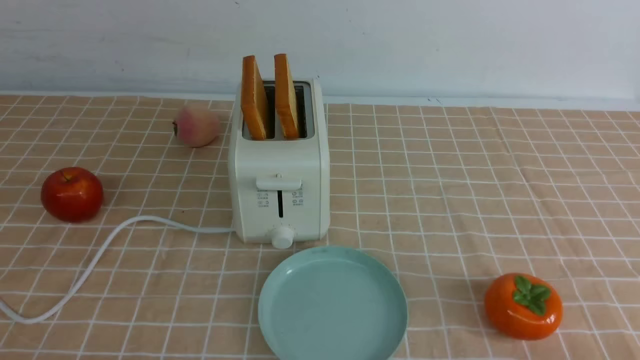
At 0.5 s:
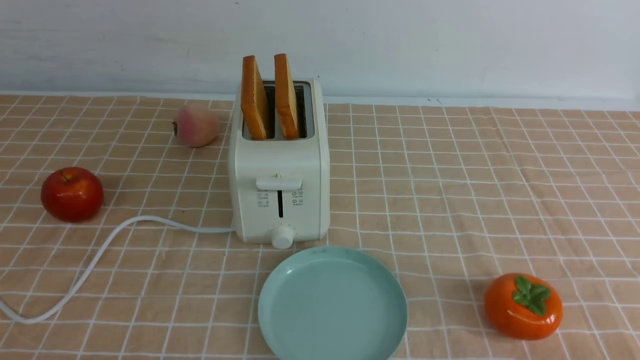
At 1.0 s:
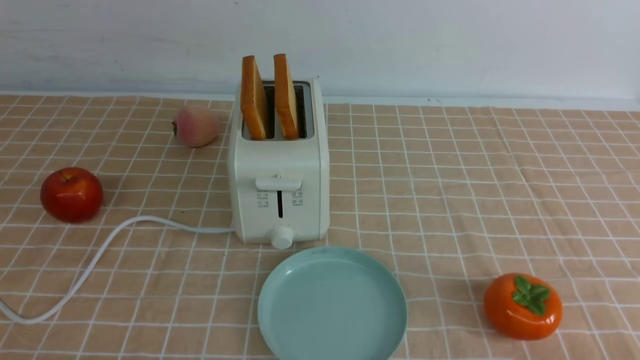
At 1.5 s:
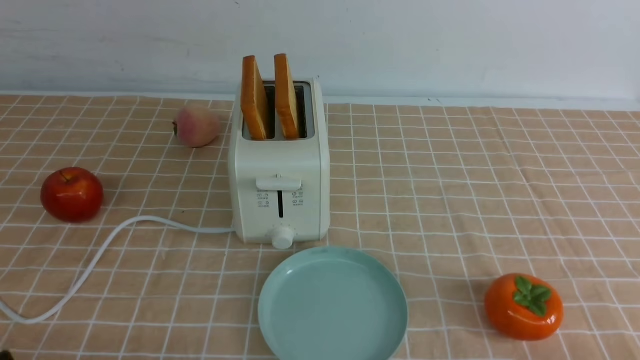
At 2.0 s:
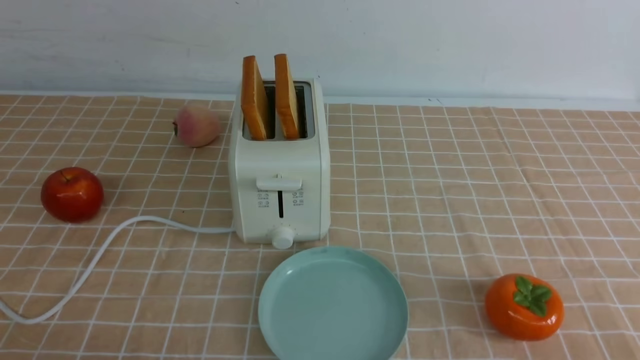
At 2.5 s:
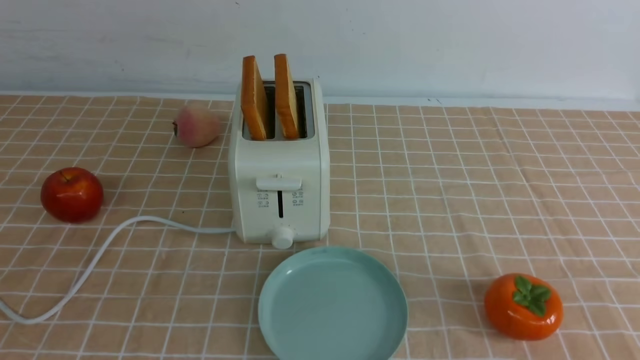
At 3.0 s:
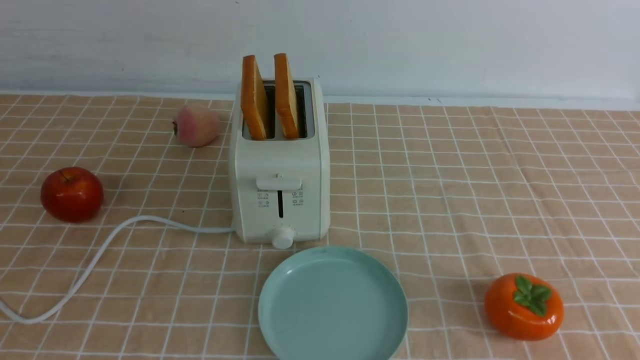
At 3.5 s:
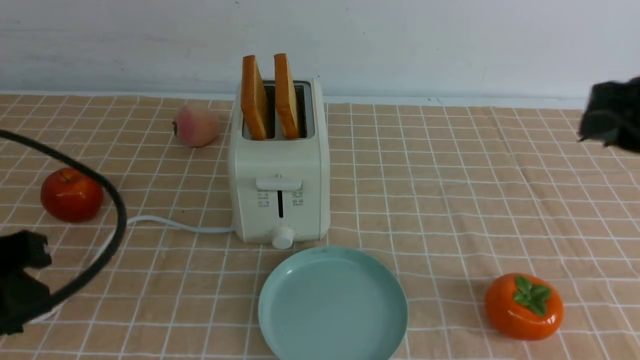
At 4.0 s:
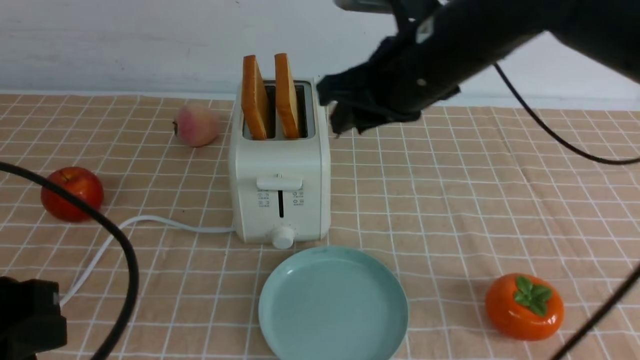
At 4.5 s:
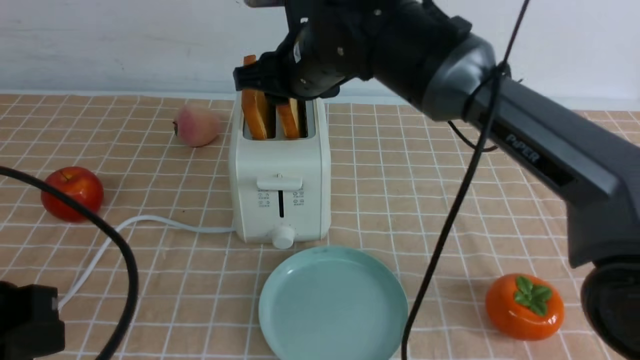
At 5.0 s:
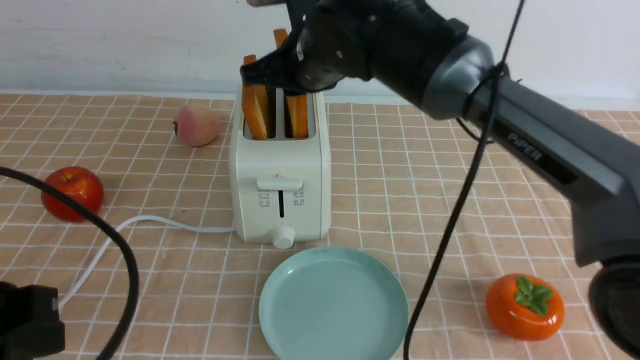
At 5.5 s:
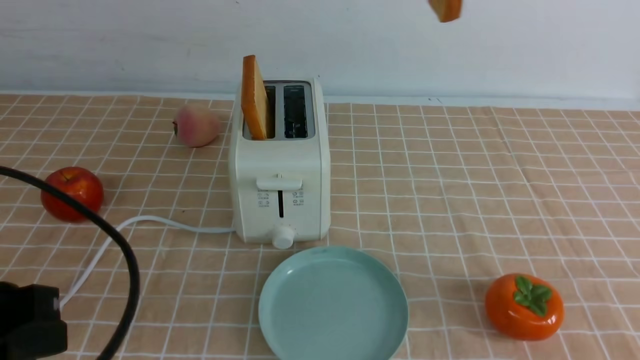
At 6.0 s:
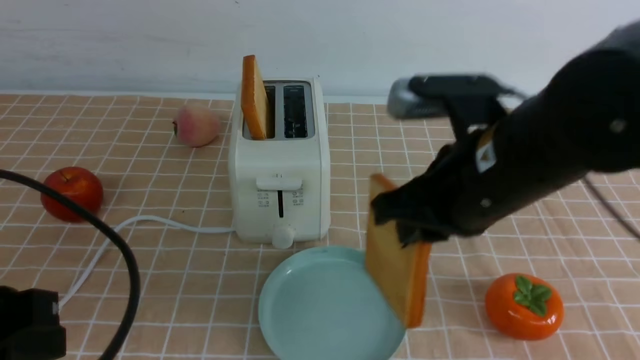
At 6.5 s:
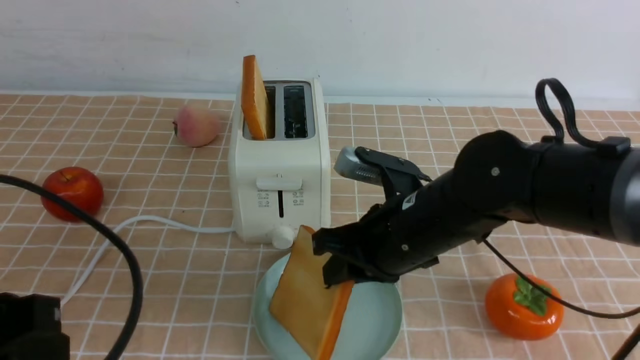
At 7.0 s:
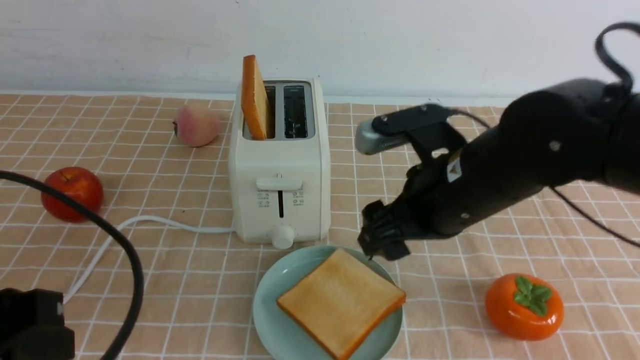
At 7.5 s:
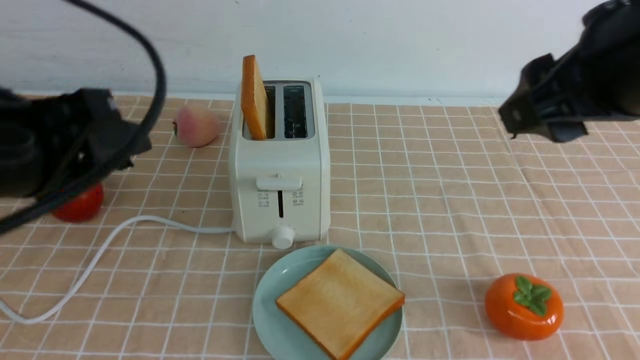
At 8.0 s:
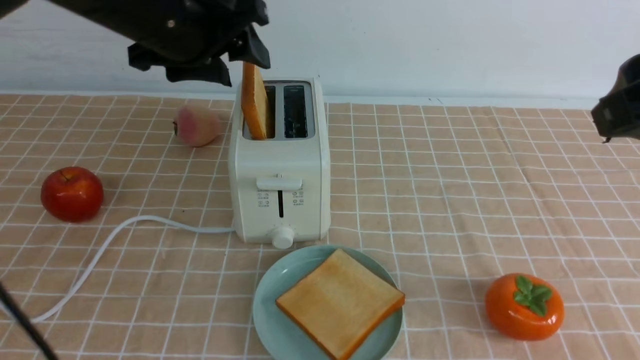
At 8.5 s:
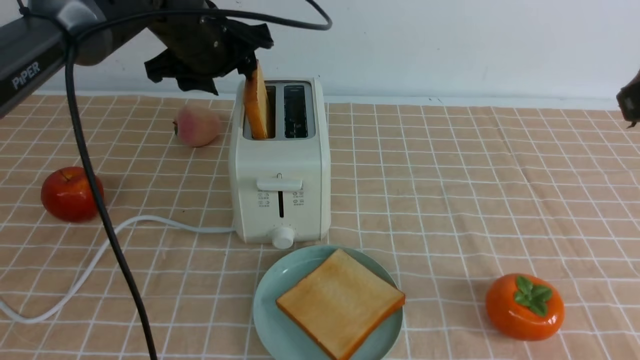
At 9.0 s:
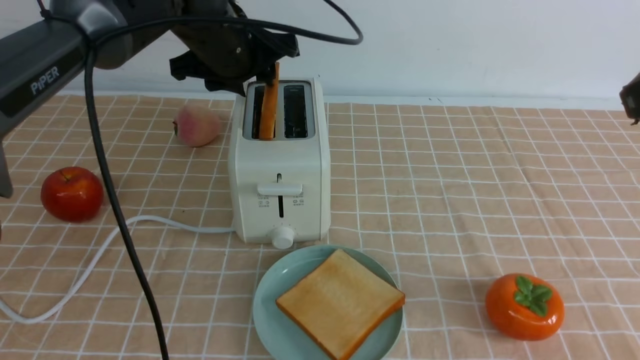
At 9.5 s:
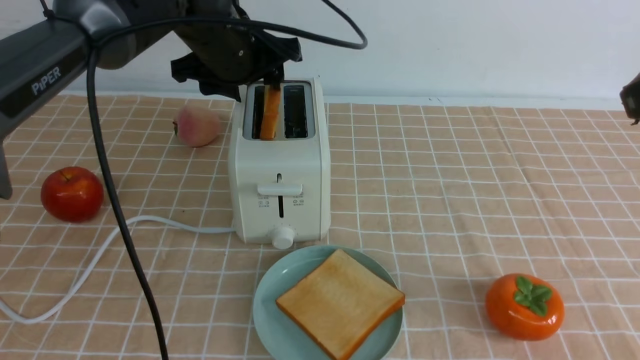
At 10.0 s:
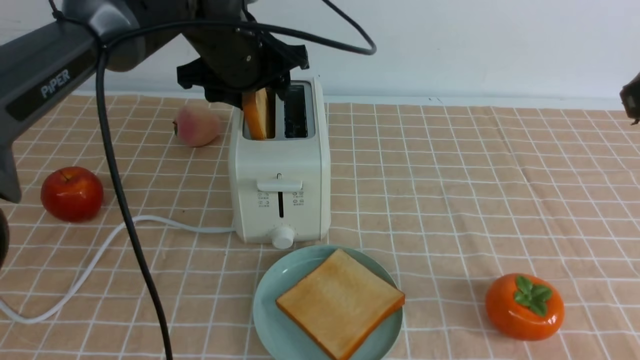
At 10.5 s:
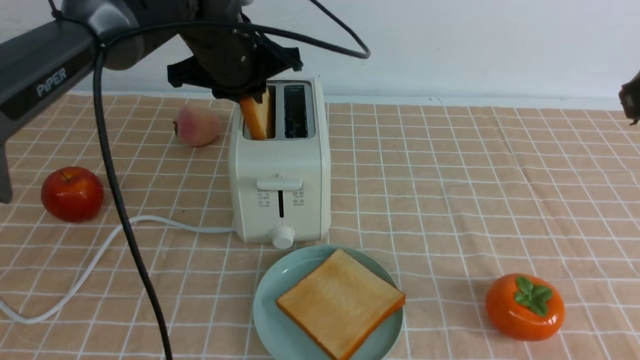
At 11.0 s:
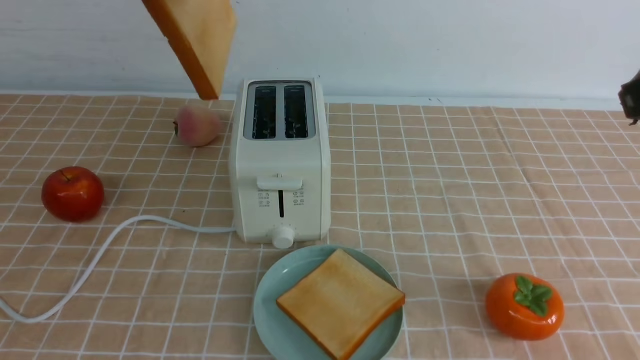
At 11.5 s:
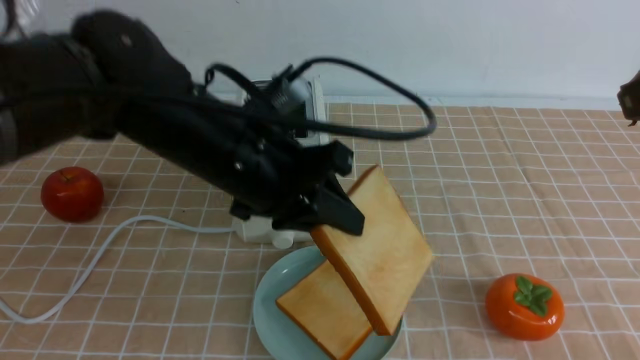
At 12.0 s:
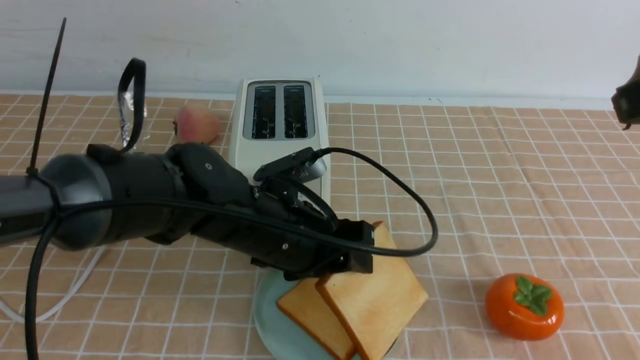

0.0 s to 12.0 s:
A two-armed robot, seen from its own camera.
Task of the whole recording: take toasted bread from bread machine on light coffee tablecloth place on plate.
Step, 0.0 to 5.0 s: use the right arm to take out a slice of bread.
Step, 5.5 to 6.5 s: use the right arm to put a slice of bread into the plate.
Step, 7.0 to 10.5 s: use the left arm to take out a slice of bread.
2.0 to 4.0 s: The right gripper moves forward and to the left, roughly 40 cm. Meanwhile the left gripper moves upward and forward, some 10 cm.
4.0 to 6.0 s: The right gripper moves up and down over some 15 cm, changing direction 2 times.
6.0 to 8.0 s: The left gripper is displaced forward by approximately 25 cm, and opens up; the right gripper shifts roughly 20 cm upward, to the right and backward, and opens.
8.0 to 10.0 s: The left gripper travels forward, downward and to the right by some 10 cm.
10.0 to 12.0 s: The left gripper is displaced backward and downward by roughly 20 cm, and closes, then reopens.

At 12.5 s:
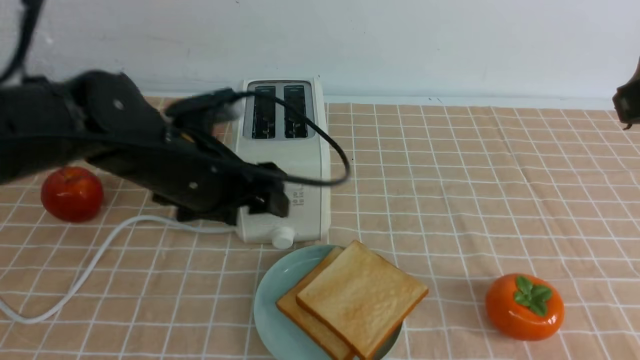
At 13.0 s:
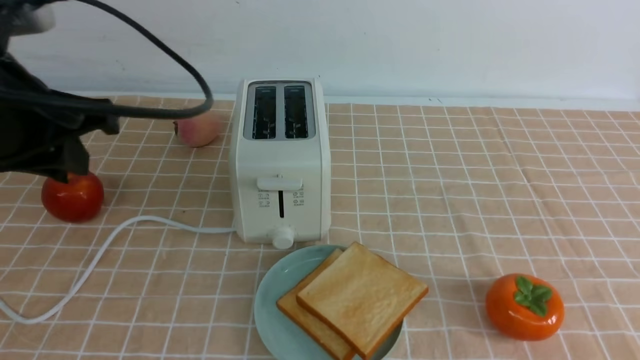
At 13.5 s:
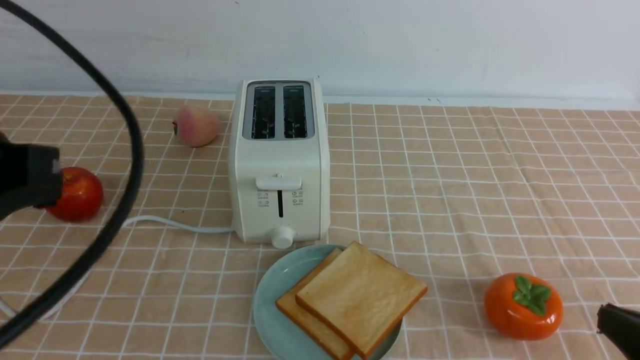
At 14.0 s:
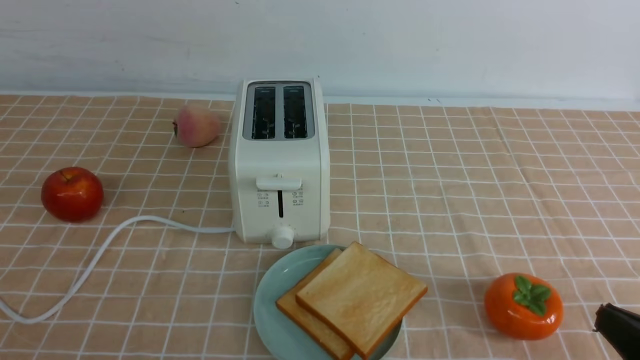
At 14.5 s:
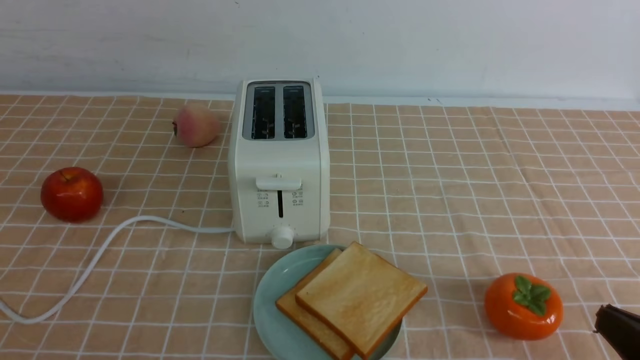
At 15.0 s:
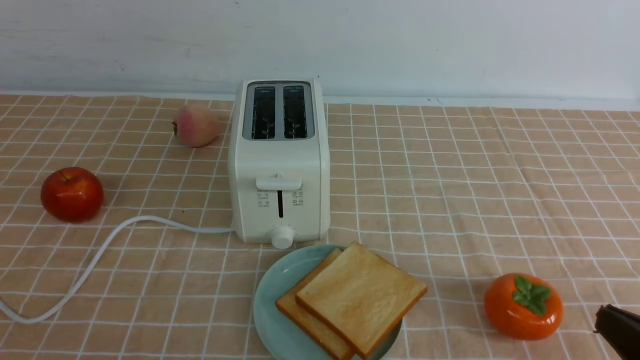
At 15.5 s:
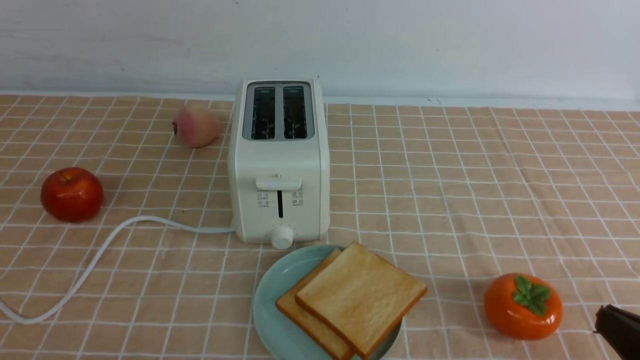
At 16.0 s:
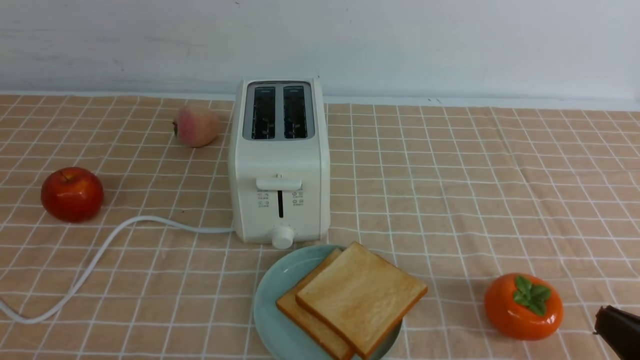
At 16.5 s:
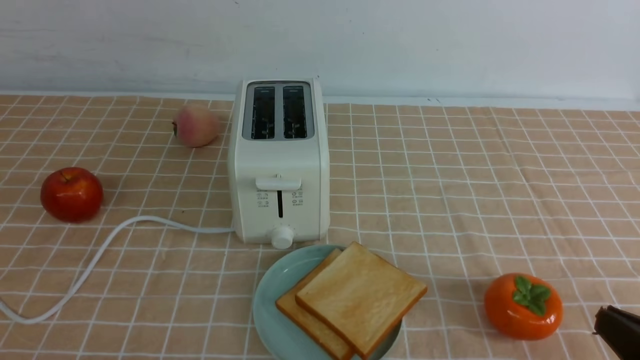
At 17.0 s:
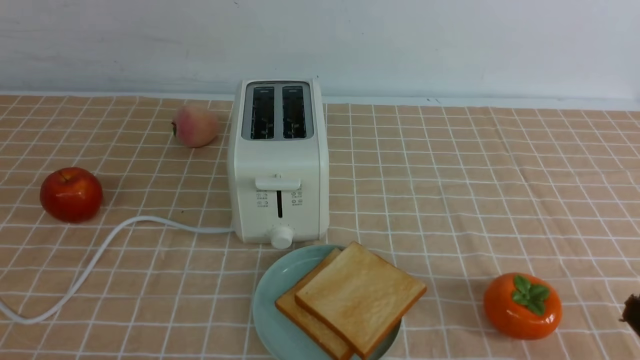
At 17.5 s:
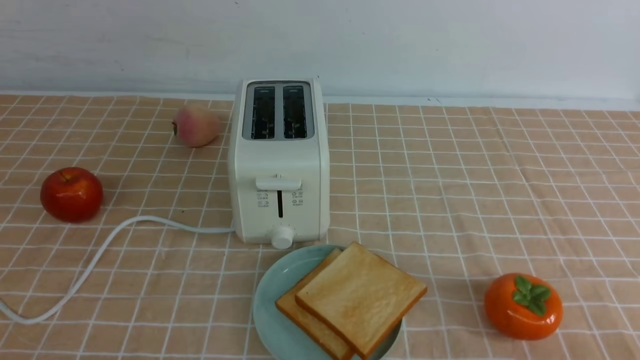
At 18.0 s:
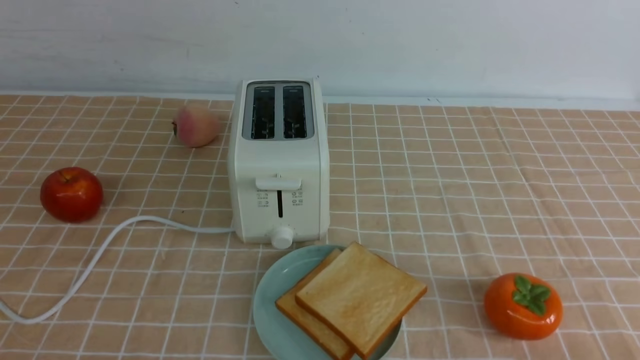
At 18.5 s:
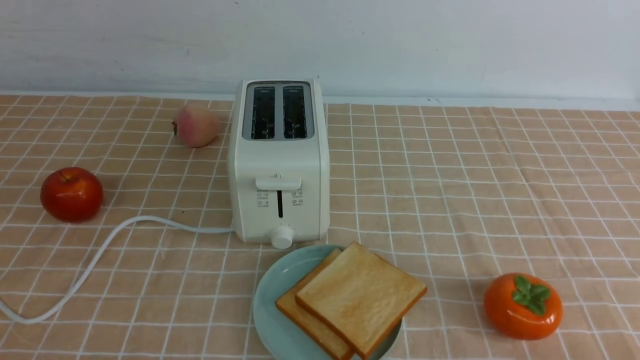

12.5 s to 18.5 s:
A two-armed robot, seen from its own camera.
Task of the whole recording: take toasted bread from bread machine on light coffee tablecloth place on plate.
12.5 to 14.5 s: The left gripper moves backward, approximately 30 cm, and closes. The right gripper shifts about 25 cm downward and backward, and closes up.
16.5 to 18.5 s: The right gripper heads downward, covering roughly 5 cm.

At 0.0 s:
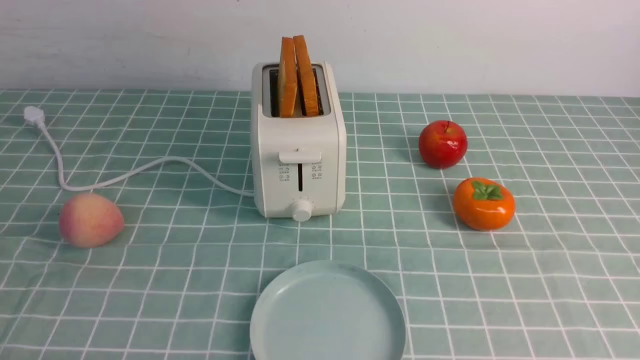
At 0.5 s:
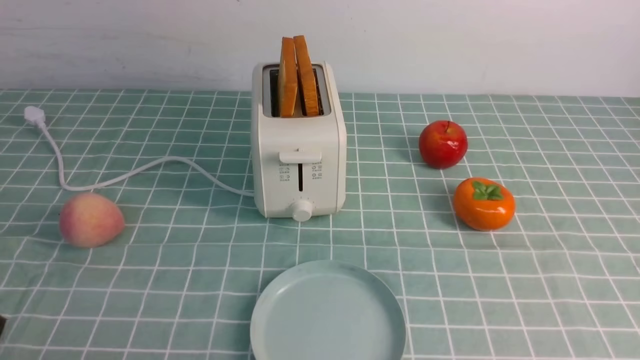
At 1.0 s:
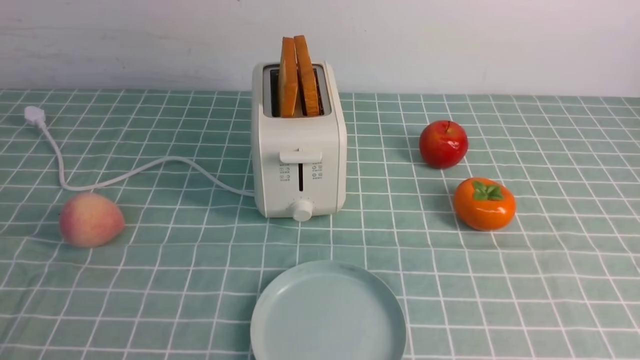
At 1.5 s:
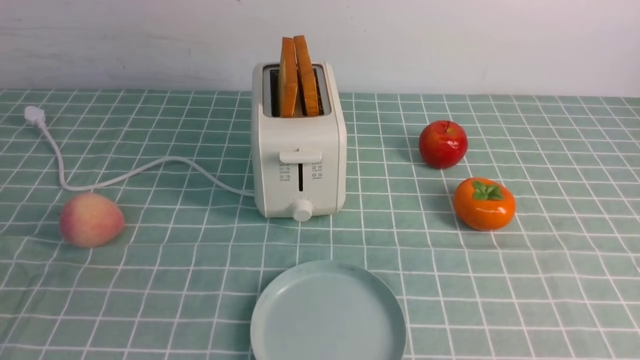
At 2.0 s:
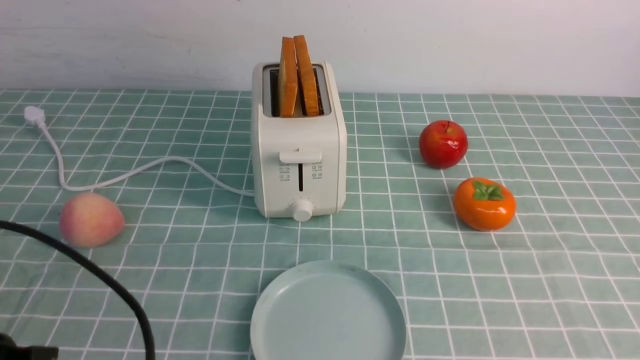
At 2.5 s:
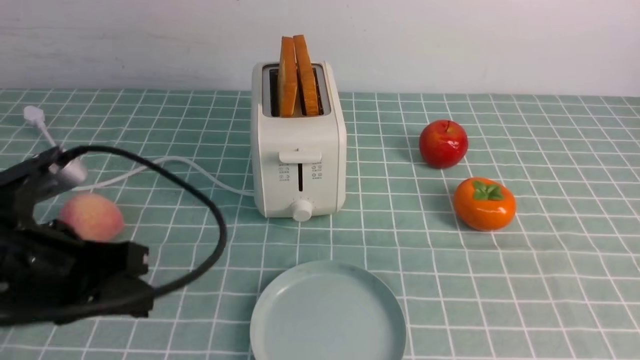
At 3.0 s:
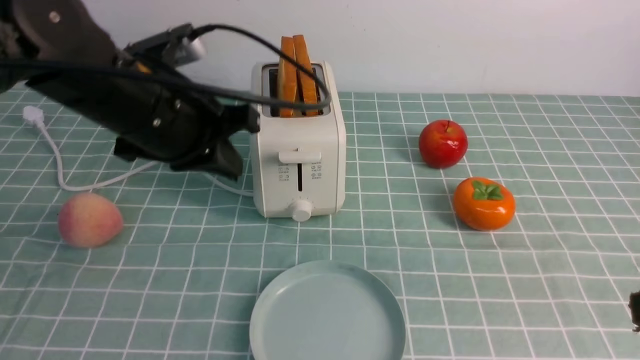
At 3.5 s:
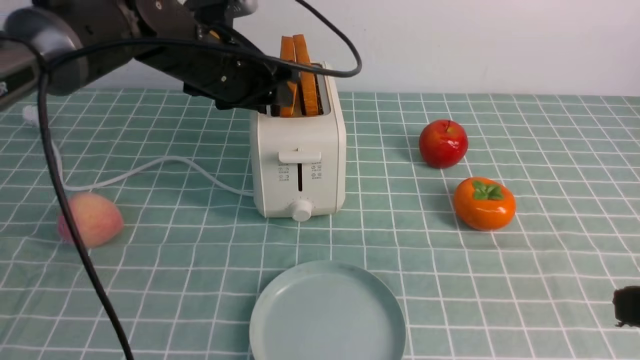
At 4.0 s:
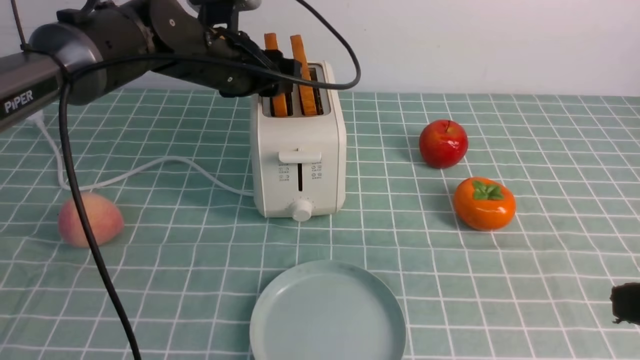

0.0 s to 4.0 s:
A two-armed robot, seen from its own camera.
Task of the whole recording: take toasted bread from bread machine on blue coffee table place on plate.
0.0 to 2.0 s: The left gripper goes some 15 cm upward and forward, and closes up.
2.0 to 4.0 s: The right gripper goes approximately 15 cm upward, forward and to the left. The left gripper moves forward, some 35 cm, and opens up.
